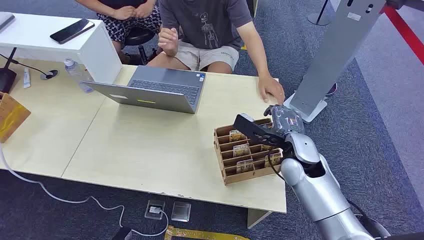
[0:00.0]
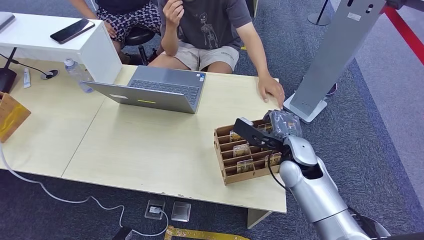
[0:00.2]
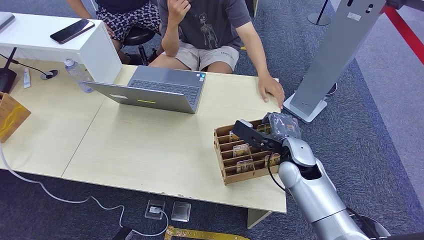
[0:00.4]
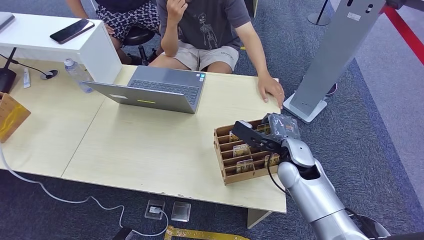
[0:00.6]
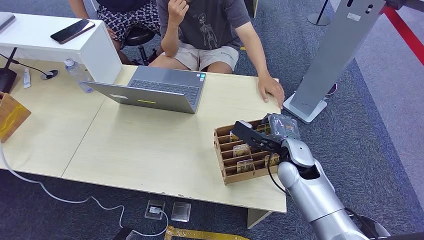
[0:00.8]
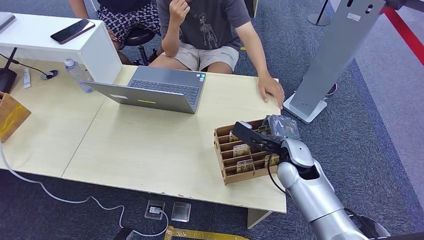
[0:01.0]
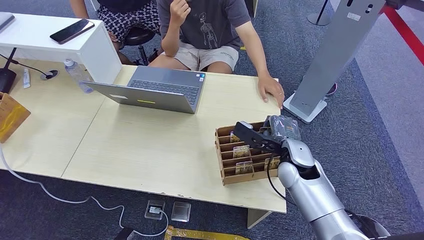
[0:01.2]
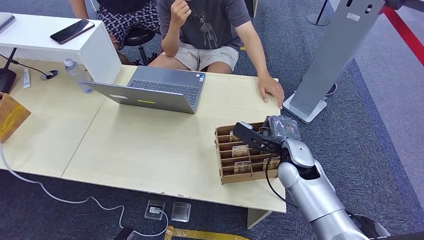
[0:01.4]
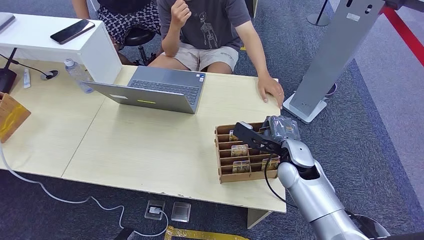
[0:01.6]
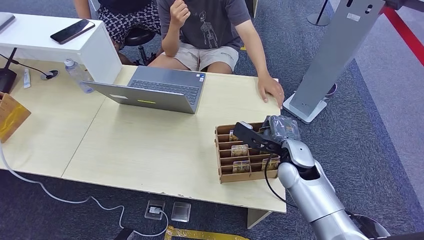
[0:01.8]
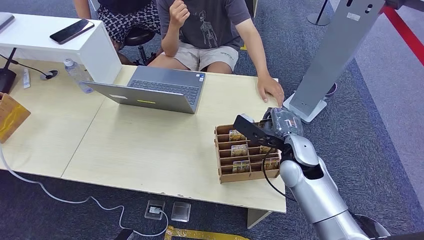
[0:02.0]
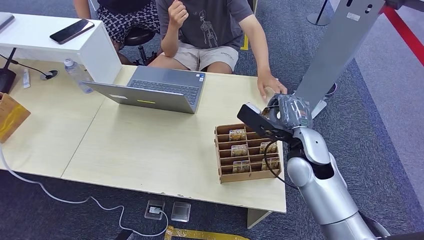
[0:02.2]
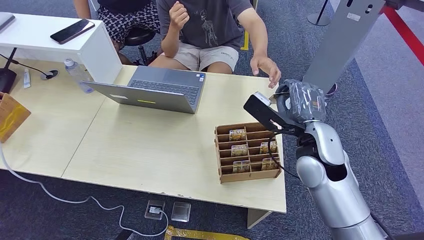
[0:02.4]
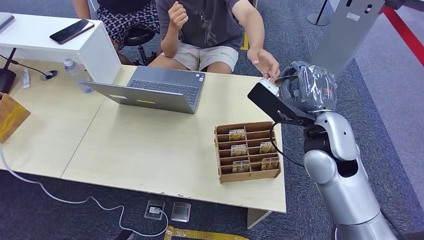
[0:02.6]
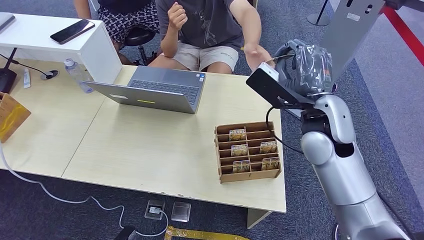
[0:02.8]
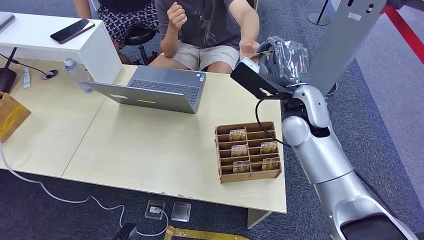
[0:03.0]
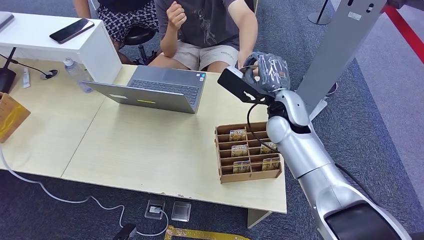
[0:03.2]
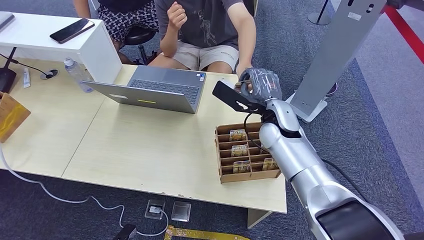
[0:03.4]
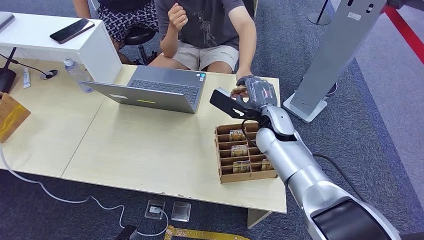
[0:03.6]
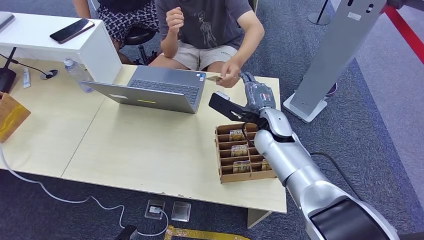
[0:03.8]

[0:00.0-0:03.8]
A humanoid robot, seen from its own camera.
Step, 0:00.0 to 0:02.2: Pick up the room card from the card holder.
Step, 0:02.4 to 0:03.8: Hand the room card to the target.
0:01.2 to 0:02.6: The right hand heads upward, covering approximately 15 cm.
0:02.6 to 0:03.8: The right hand heads forward, downward and to the left, covering some 15 cm.
